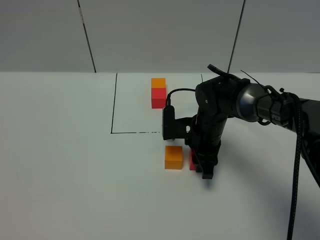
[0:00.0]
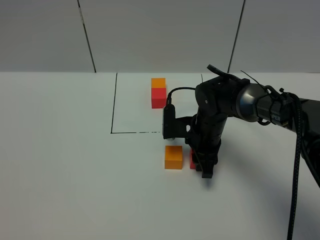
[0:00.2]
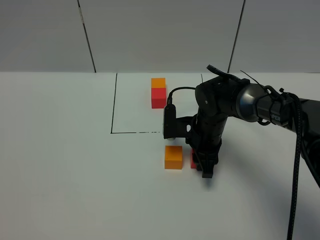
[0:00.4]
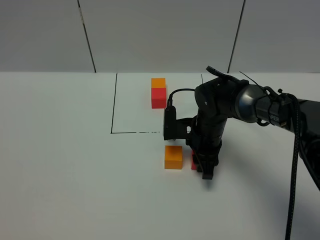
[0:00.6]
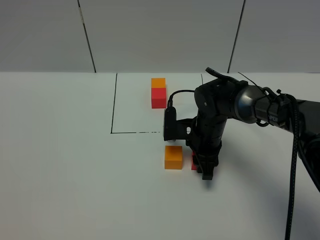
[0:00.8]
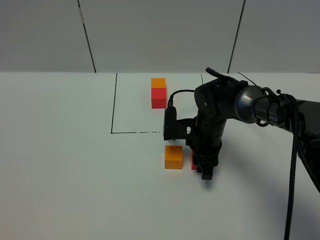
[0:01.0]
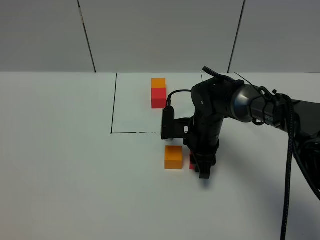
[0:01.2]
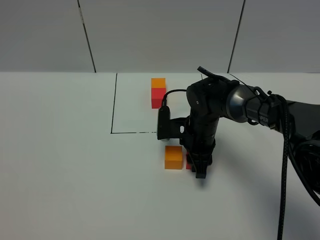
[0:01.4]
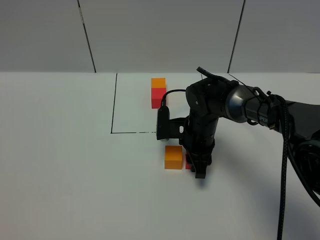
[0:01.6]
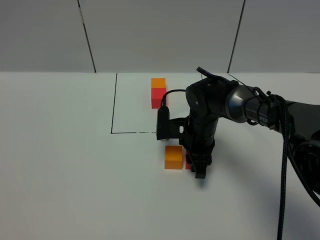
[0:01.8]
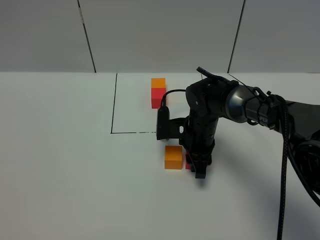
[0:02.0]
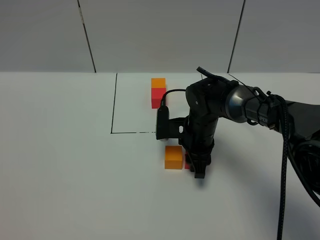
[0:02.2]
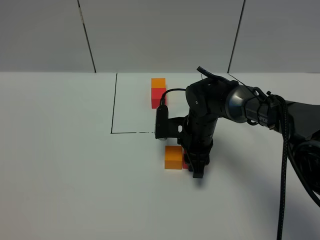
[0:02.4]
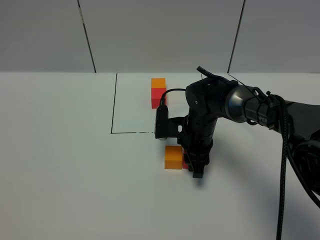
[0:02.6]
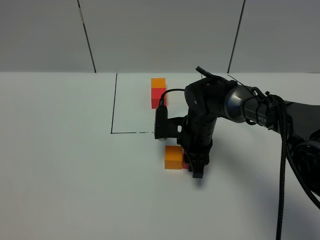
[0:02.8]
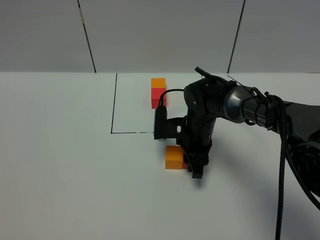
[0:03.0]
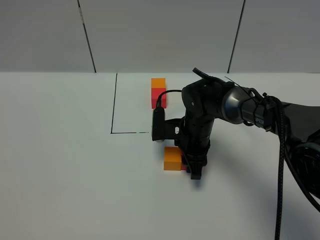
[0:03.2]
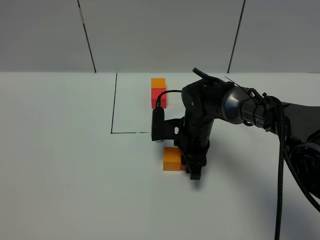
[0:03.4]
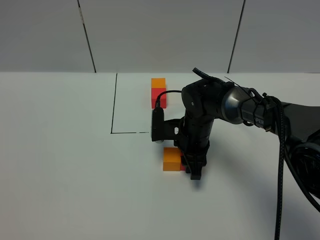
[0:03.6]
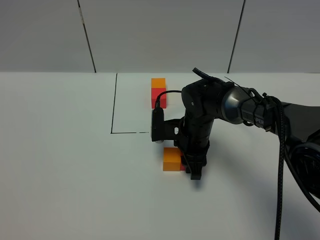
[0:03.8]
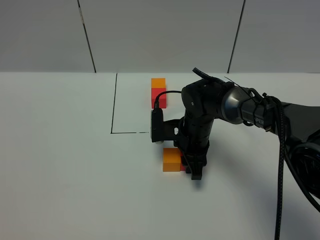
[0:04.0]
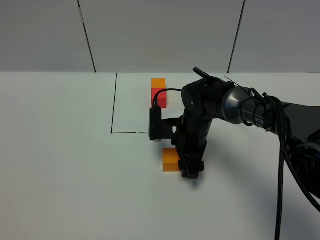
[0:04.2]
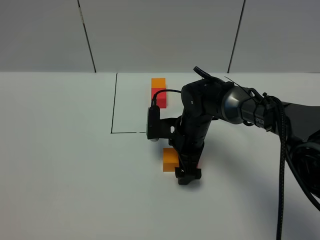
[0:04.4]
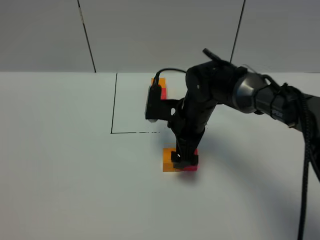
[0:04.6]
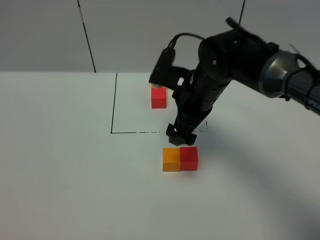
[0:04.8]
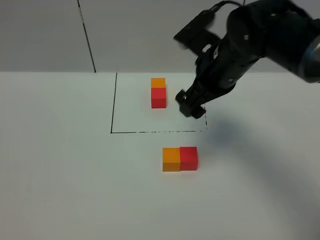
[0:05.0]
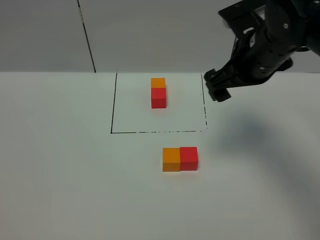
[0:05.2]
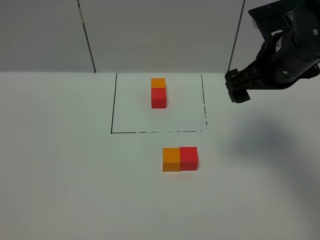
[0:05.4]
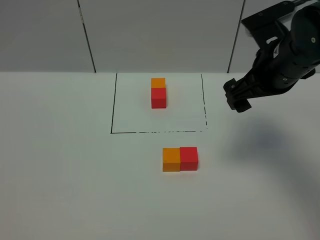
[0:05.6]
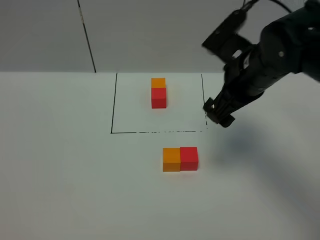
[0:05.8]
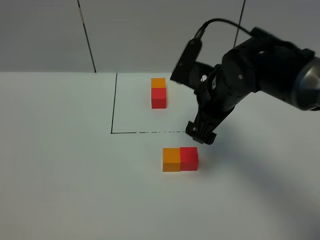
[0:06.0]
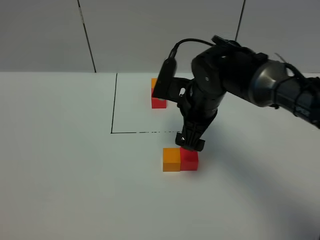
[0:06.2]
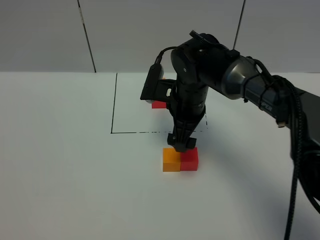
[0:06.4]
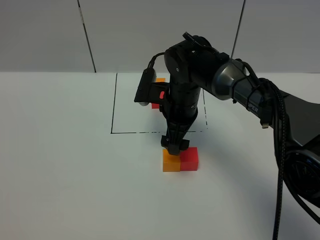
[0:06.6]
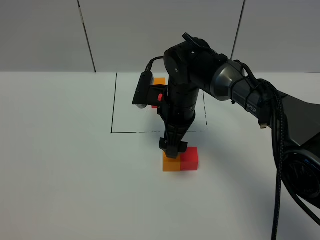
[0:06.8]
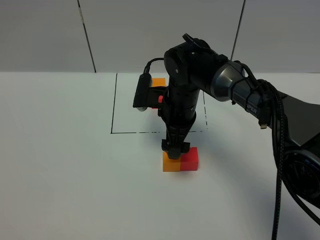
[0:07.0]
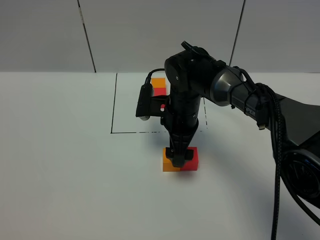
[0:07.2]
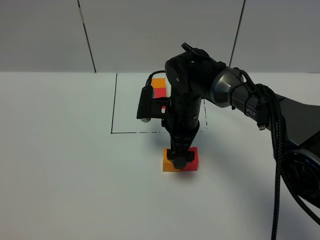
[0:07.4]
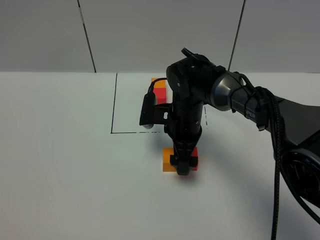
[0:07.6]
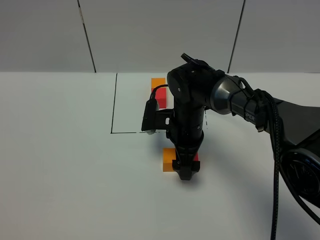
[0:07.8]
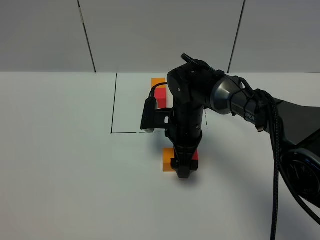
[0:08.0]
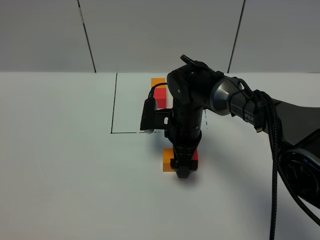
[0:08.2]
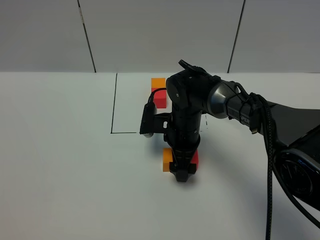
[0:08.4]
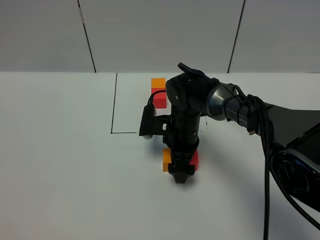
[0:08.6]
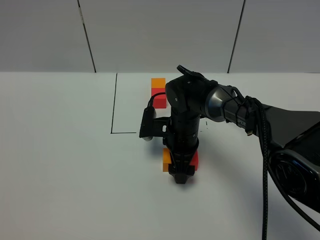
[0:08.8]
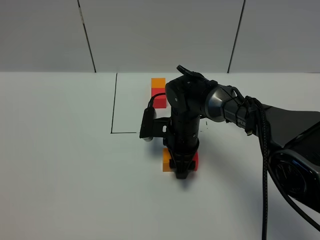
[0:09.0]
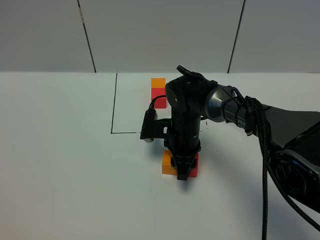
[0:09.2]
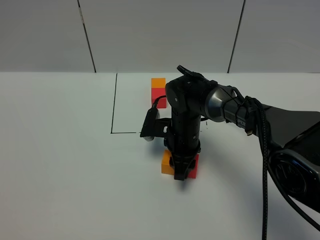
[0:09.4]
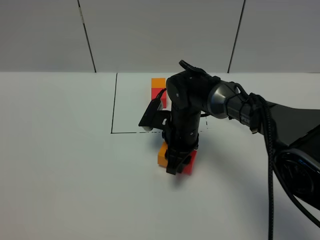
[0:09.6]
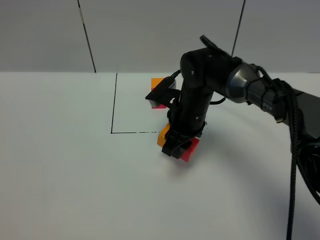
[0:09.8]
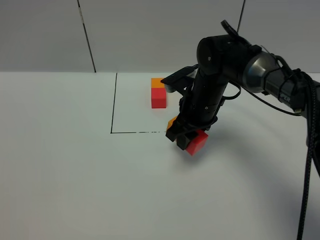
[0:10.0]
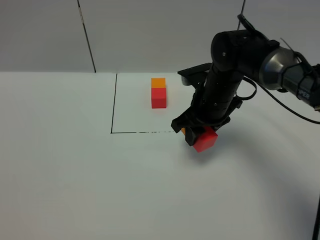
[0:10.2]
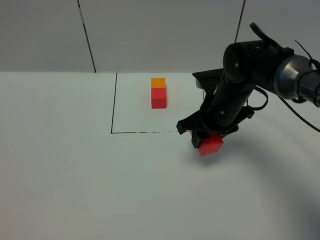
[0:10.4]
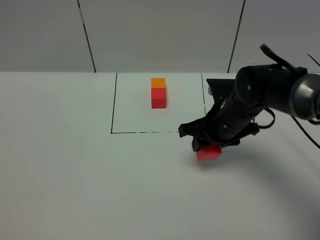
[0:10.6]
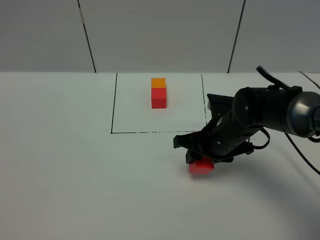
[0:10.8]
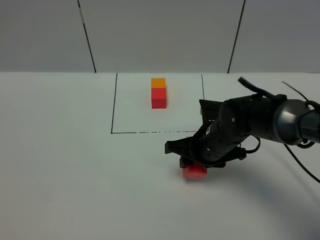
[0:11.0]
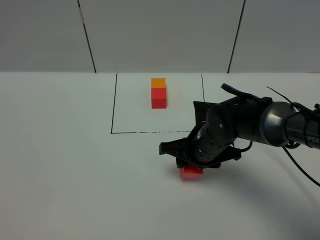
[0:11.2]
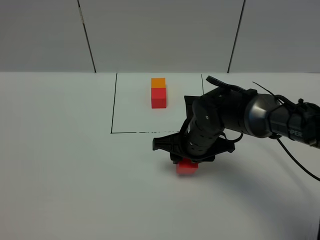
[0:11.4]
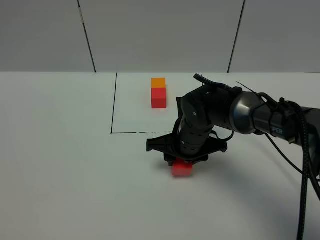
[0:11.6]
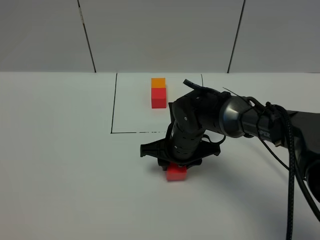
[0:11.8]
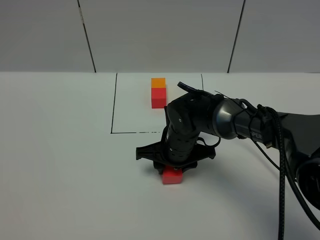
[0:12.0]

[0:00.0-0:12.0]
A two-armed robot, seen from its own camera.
Task of the whole recording: According to the building block template in front, assemble the scattered blocks together.
Step, 0:00.0 to 0:04.8: Put the red cube on the right of the orange cube.
0:00.0 to 0:01.6: There are only small adjustments of the grippers.
0:01.6 to 0:03.0: Neither gripper changes place.
0:03.0 to 0:04.4: The right gripper opens up.
0:04.4 to 0:06.0: The right gripper shifts approximately 10 cm upward.
0:06.0 to 0:07.6: The right gripper goes some 10 cm downward and to the left.
0:07.6 to 0:09.0: The right gripper closes.
0:09.0 to 0:10.4: The right gripper shifts some 10 cm upward and to the right.
0:10.4 to 0:12.0: The right gripper moves to the left and downward, roughly 10 cm.

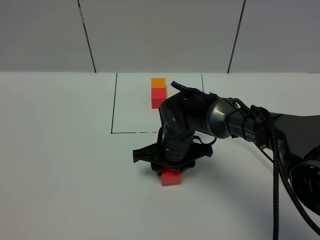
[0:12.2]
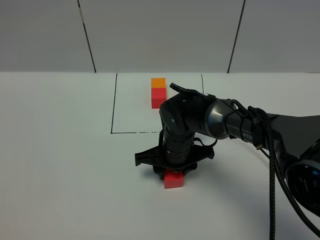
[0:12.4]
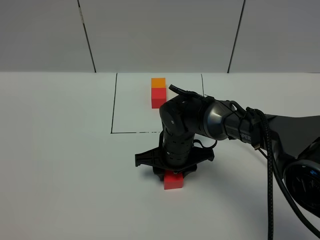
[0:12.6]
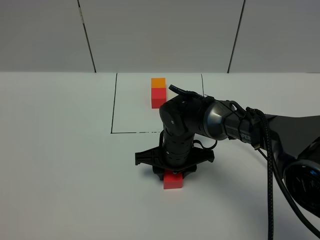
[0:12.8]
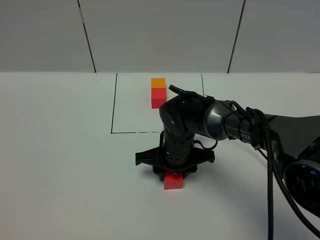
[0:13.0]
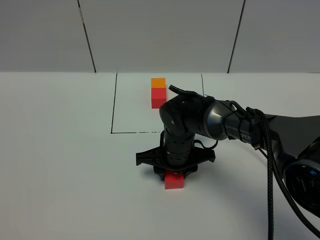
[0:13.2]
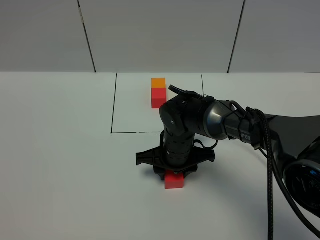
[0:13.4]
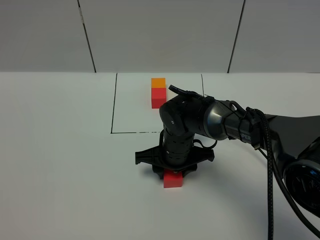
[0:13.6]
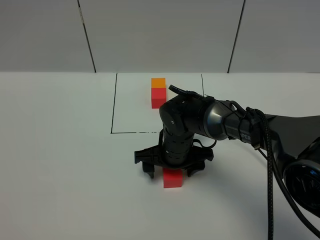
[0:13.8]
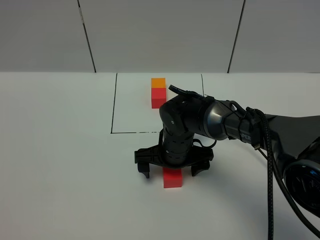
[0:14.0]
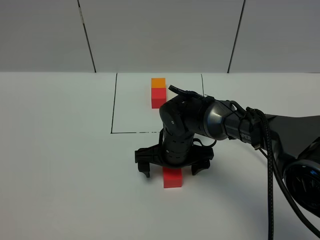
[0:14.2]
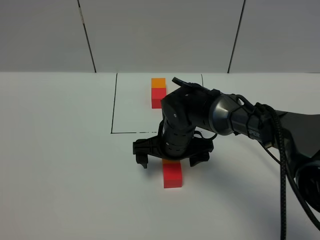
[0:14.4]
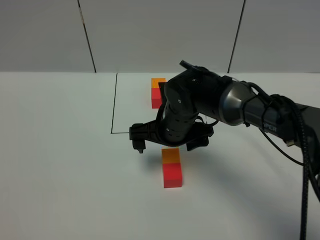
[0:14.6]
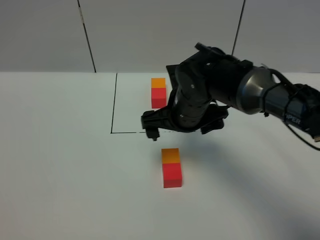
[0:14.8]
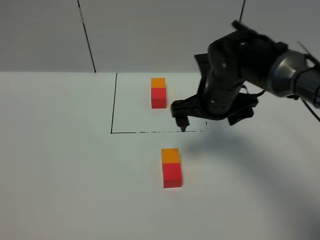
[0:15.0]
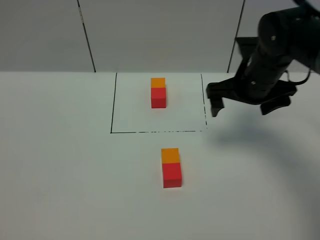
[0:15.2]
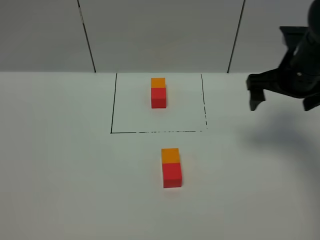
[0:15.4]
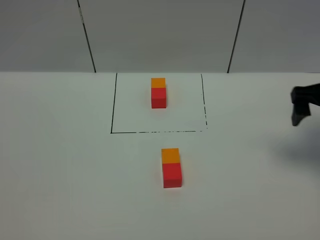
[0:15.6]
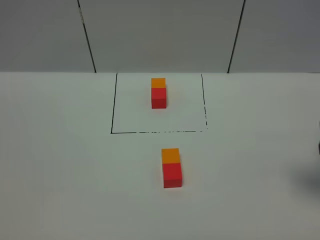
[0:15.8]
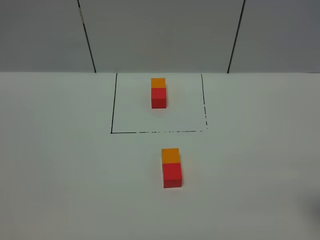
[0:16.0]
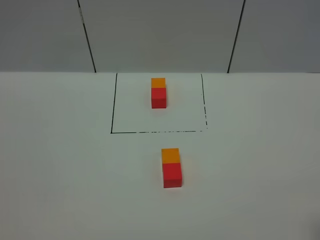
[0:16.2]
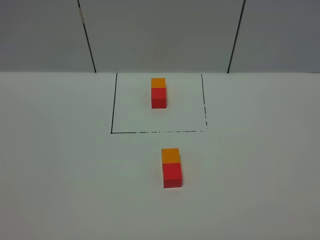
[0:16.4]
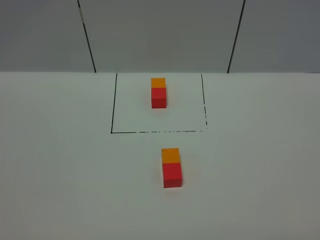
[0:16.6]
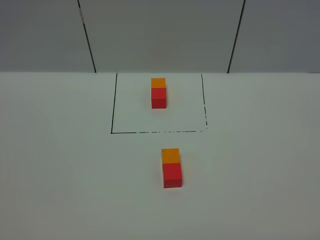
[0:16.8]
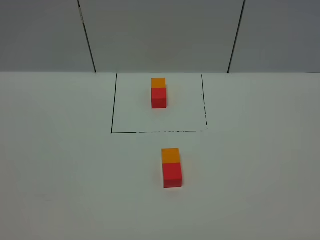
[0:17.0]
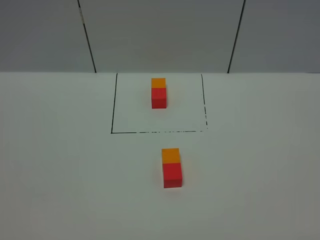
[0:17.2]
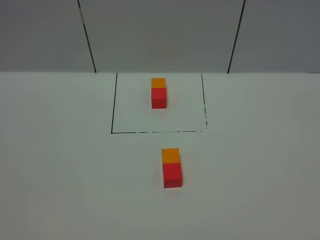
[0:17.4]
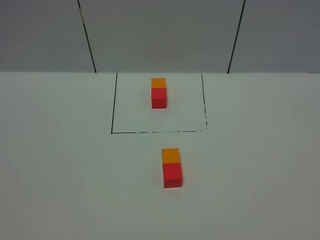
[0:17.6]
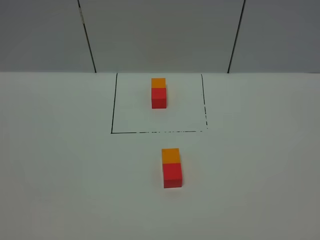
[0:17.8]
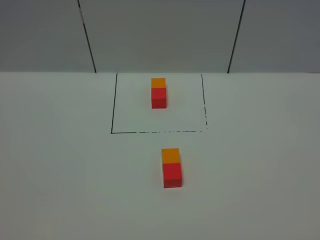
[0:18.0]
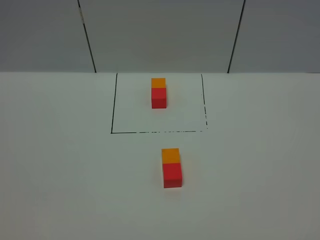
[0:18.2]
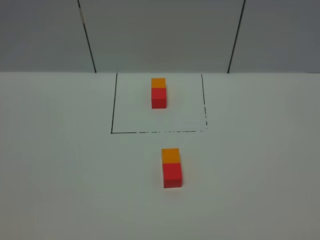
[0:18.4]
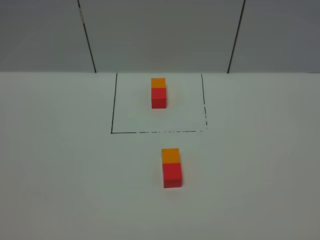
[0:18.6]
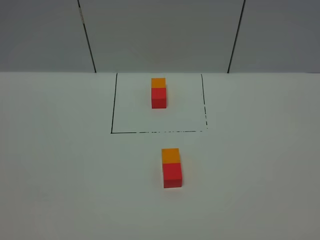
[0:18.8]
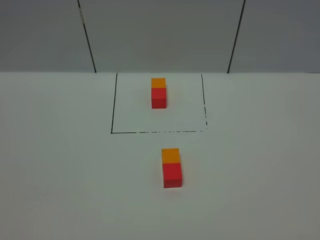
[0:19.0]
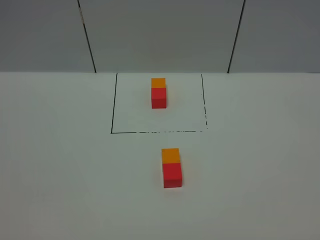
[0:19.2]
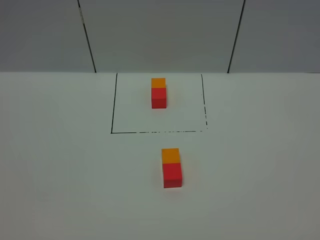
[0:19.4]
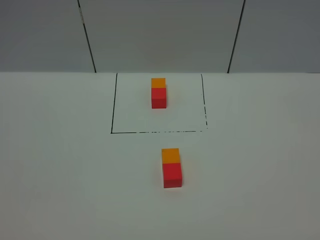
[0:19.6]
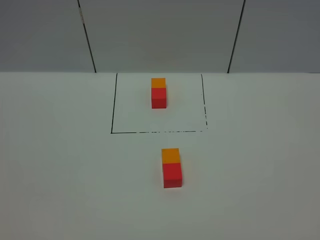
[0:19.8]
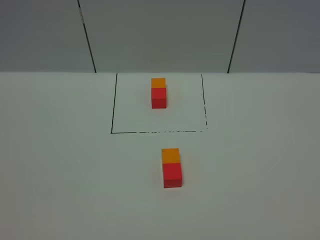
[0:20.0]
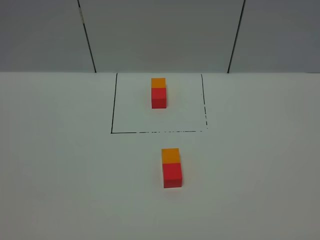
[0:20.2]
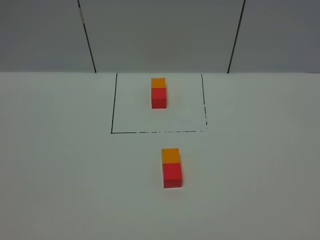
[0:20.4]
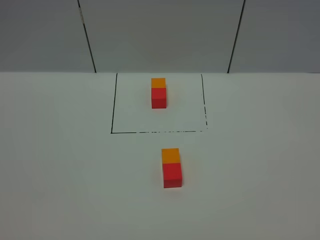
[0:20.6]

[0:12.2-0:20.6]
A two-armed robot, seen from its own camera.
Task of the whole recording: According to the building block template in front, assemble the scattered blocks together.
Step, 0:12.2 to 0:14.6: Adjust the pose of the building blocks.
0:12.2 to 0:13.6: The two grippers keep their place.
0:13.6 to 0:15.0: The right gripper is displaced upward and to the right by roughly 15 cm, and opens.
0:15.0 to 0:16.4: The right gripper goes roughly 40 cm backward and to the right.
0:17.8 to 0:20.6: Both grippers stay put.

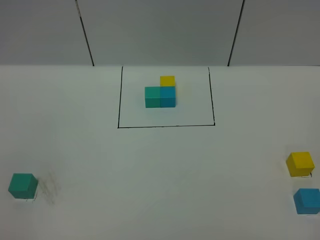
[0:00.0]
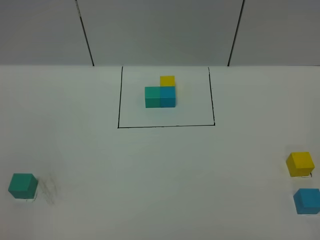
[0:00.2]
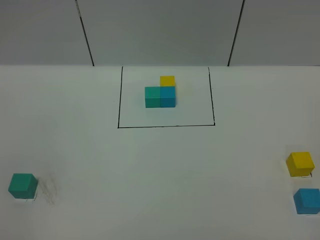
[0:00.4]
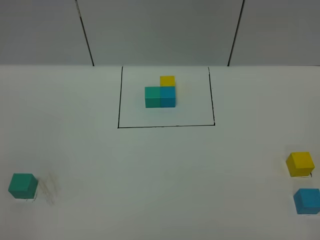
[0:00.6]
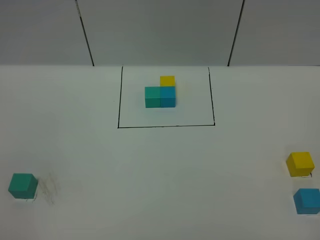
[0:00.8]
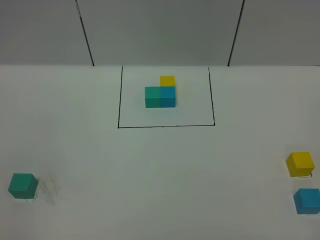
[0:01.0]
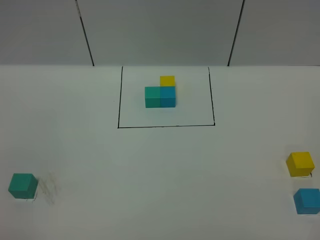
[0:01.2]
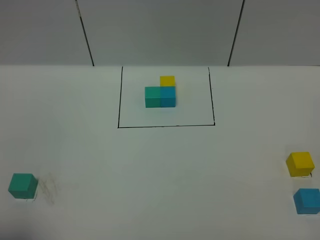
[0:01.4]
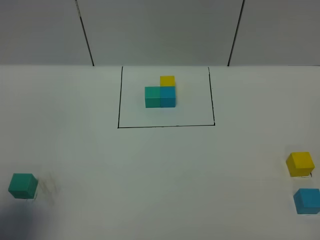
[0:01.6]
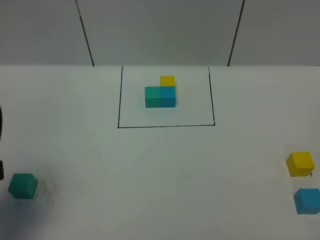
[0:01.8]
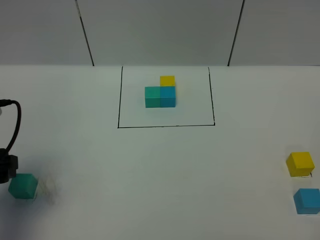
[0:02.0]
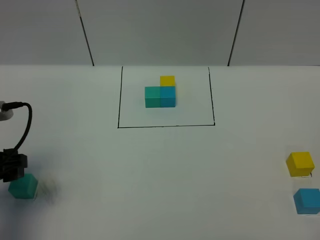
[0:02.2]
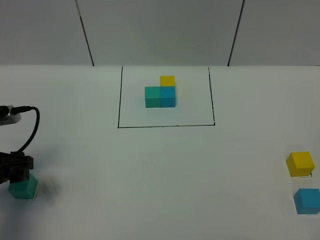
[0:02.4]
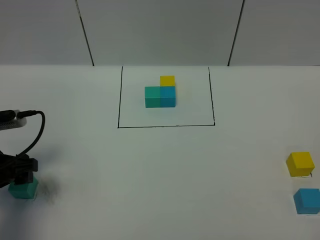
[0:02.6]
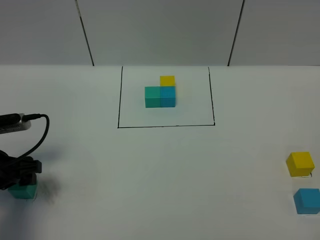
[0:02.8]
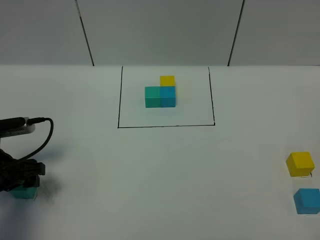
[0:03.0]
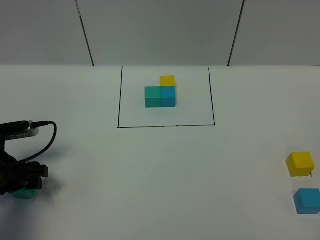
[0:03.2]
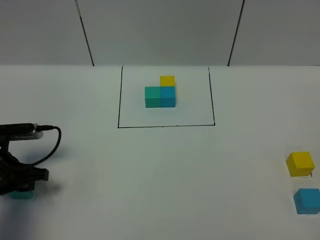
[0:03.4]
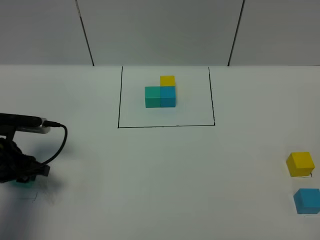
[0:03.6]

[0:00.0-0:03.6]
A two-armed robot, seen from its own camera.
Task of the whole recording: According to the building block template in front, assemble the scattered blocks together.
0:00.0 to 0:01.8: The left gripper shifts some 20 cm forward.
0:01.8 to 0:03.6: The left gripper moves downward and forward, roughly 15 cm, and closes.
